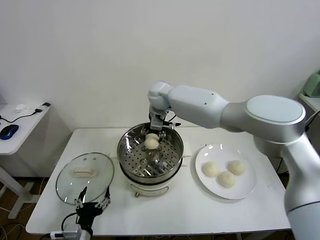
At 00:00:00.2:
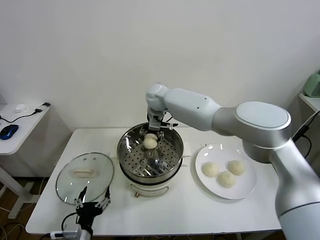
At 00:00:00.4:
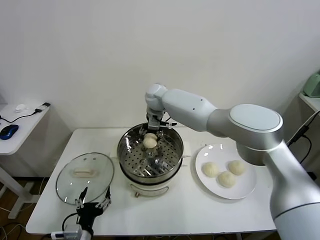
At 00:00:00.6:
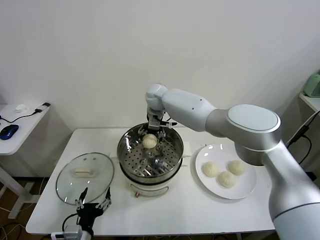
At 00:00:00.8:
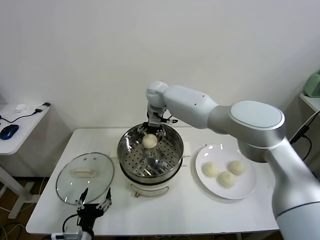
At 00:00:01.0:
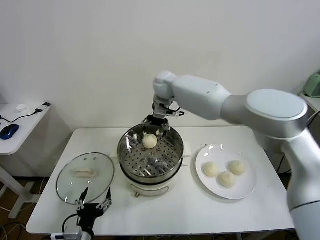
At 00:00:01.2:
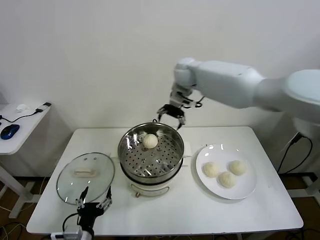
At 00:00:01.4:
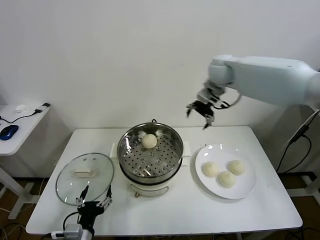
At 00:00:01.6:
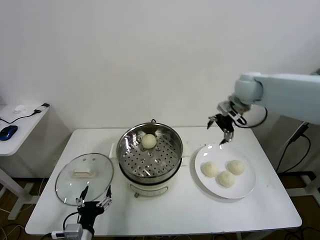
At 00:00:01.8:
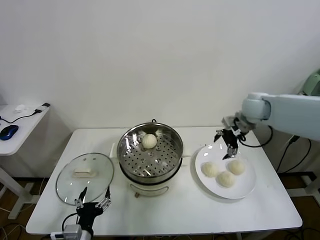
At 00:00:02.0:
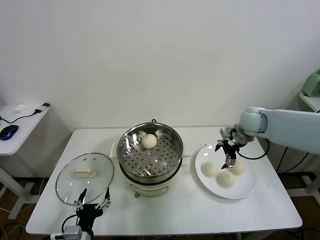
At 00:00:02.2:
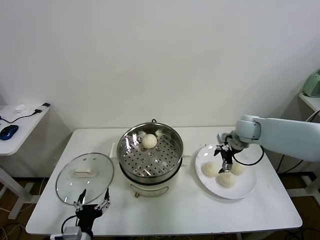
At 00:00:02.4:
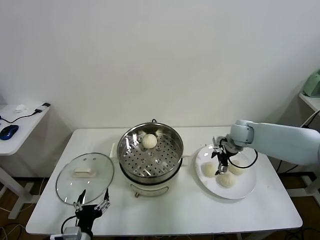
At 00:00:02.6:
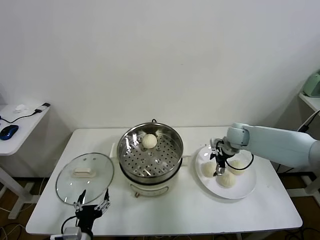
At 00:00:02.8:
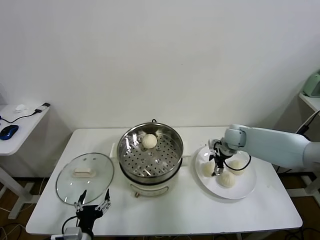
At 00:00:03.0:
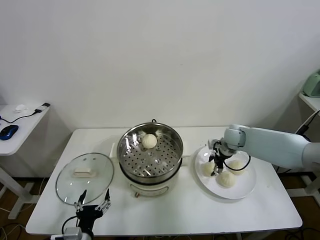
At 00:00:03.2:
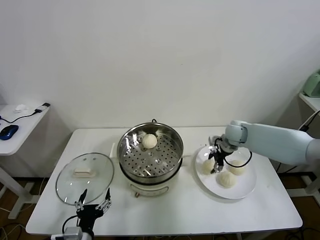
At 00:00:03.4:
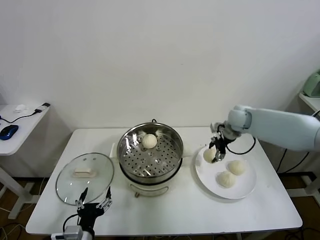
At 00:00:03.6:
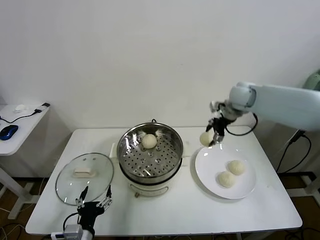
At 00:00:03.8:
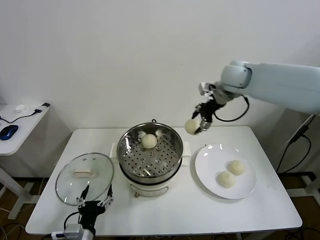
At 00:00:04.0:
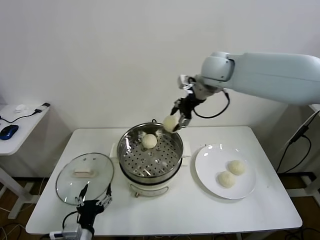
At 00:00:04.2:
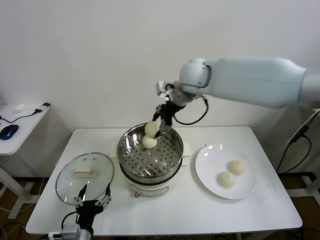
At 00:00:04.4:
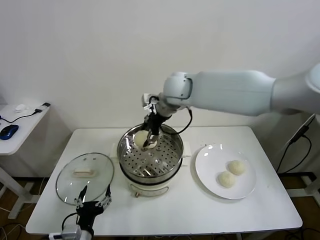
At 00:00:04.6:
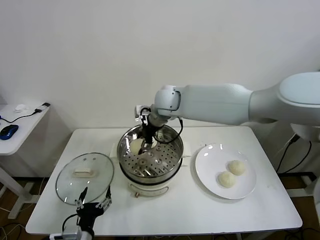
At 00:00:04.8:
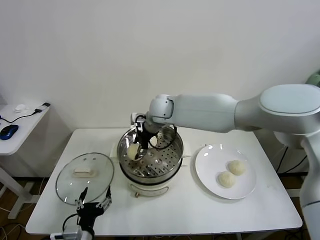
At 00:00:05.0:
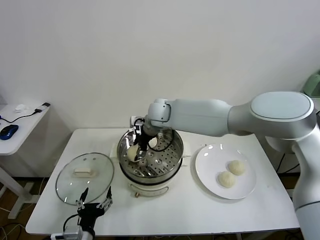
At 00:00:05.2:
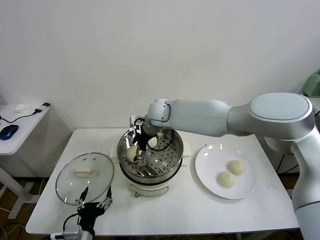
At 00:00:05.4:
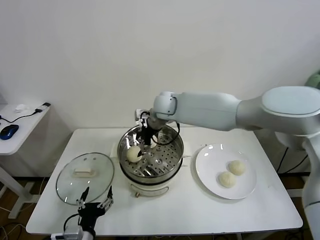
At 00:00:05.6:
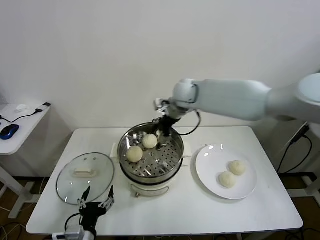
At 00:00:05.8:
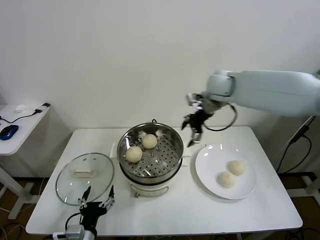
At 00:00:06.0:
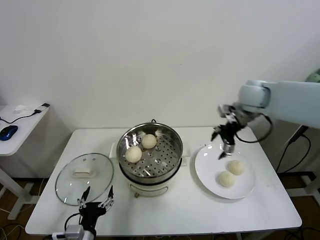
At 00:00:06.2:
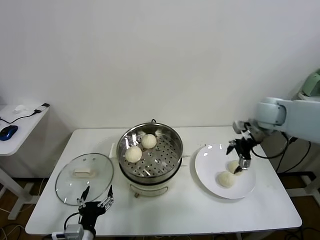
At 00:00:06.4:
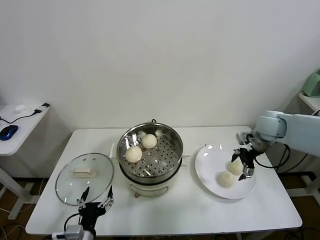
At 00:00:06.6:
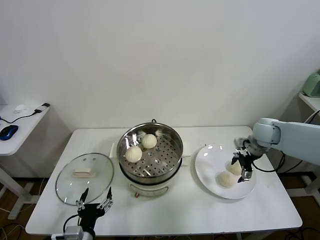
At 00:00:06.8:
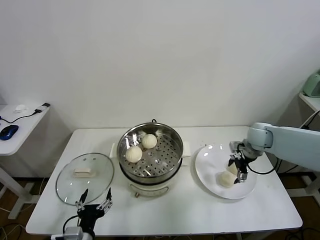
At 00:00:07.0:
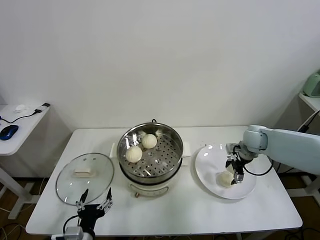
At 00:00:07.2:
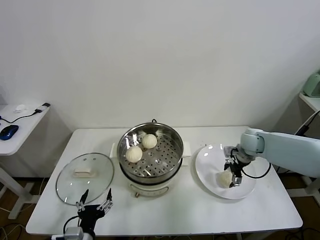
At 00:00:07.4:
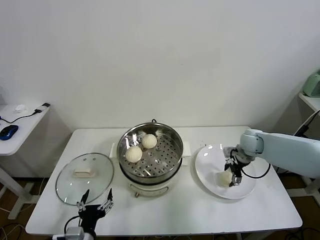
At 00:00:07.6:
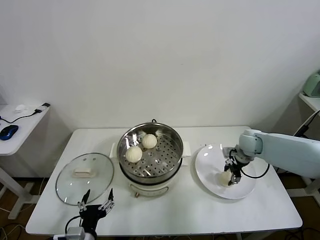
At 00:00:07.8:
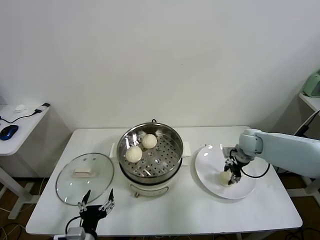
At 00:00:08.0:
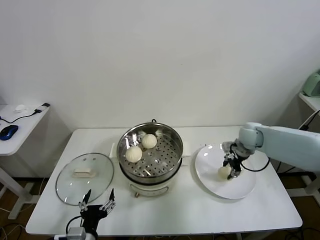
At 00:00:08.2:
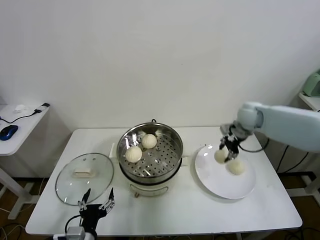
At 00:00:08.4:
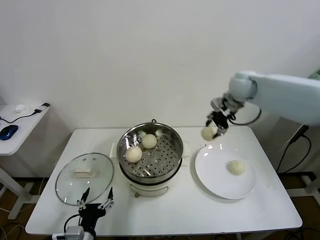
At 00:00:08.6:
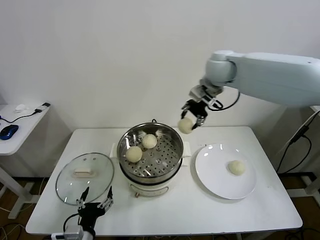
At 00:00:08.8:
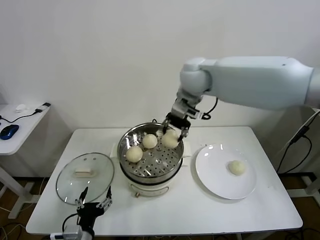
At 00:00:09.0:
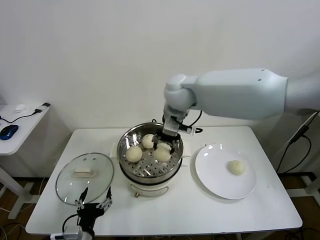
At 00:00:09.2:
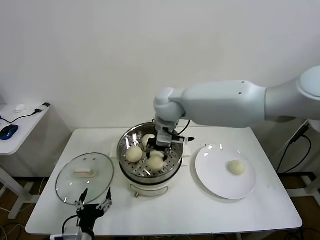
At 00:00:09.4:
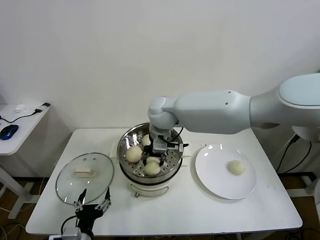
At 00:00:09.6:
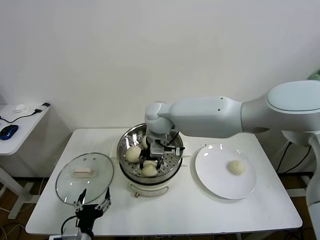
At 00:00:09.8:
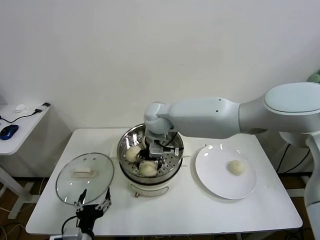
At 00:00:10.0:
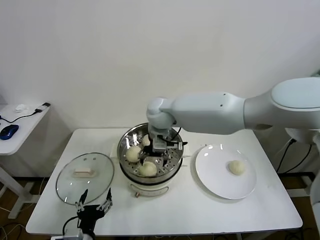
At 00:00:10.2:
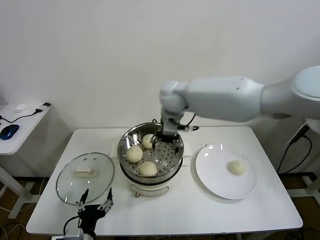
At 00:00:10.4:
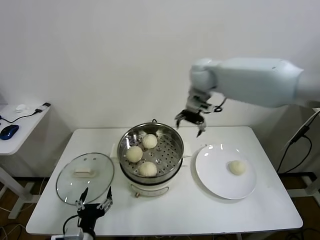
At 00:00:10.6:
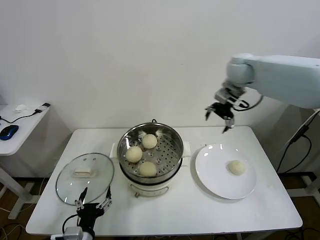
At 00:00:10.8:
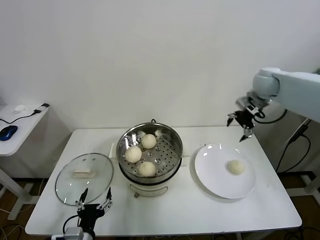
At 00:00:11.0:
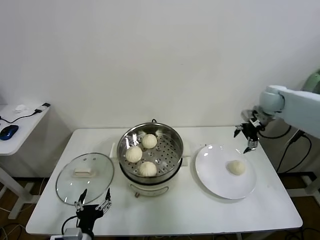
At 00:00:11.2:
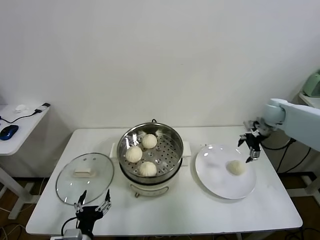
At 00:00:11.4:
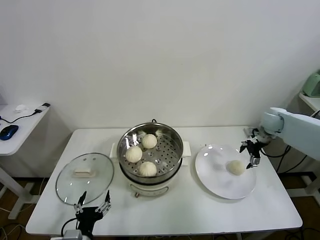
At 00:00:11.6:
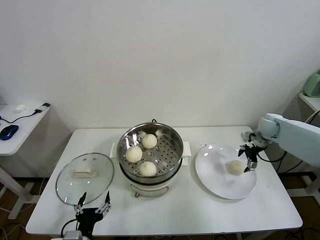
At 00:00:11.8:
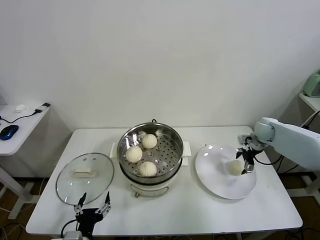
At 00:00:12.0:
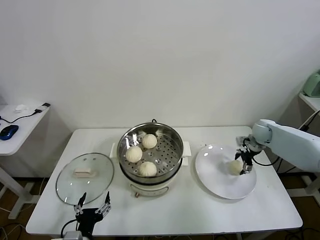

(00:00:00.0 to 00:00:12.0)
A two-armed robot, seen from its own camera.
Task of the whole recording: take steamed baozi put them in steamer.
Step, 00:00:01.0 - 00:00:03.0: Grasp the baozi in the plate with right gripper.
Step, 00:00:03.2 - 00:00:05.2: Place the baozi on the steamer with right gripper.
Step, 00:00:05.4 - 00:00:07.6: Grasp the baozi in the plate with right gripper.
Step, 00:00:07.8 - 00:00:09.8: Place the baozi on the steamer with right gripper.
00:00:00.0 - 00:00:01.6: The right gripper heads to the right, covering roughly 30 cm, and opens.
00:00:01.6 - 00:00:03.0: The right gripper travels downward by roughly 20 cm, and closes its fingers.
00:00:03.0 - 00:00:04.4: The right gripper moves to the left and upward, approximately 35 cm.
00:00:04.4 - 00:00:06.0: The right gripper heads to the right, covering about 25 cm, and opens up.
00:00:06.0 - 00:00:07.6: The right gripper travels downward by approximately 20 cm, and closes.
00:00:07.6 - 00:00:09.0: The right gripper travels to the left and upward by about 35 cm.
00:00:09.0 - 00:00:10.4: The right gripper moves to the right and forward, roughly 10 cm, and opens its fingers.
00:00:10.4 - 00:00:12.0: The right gripper moves to the right and downward, roughly 35 cm.

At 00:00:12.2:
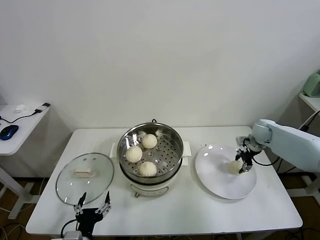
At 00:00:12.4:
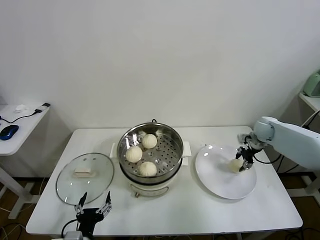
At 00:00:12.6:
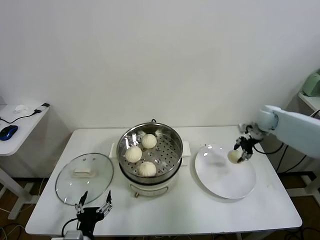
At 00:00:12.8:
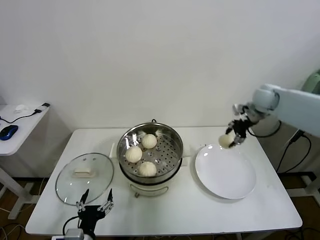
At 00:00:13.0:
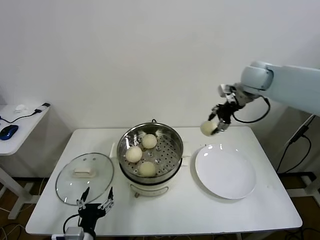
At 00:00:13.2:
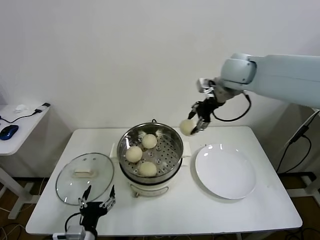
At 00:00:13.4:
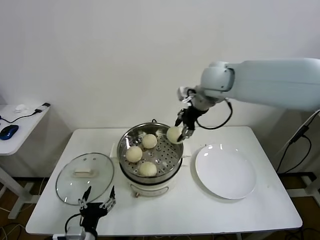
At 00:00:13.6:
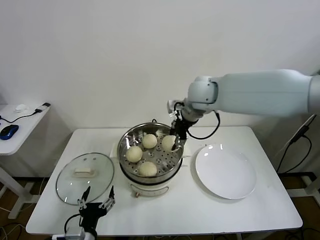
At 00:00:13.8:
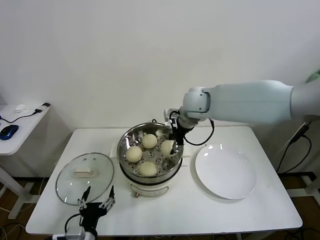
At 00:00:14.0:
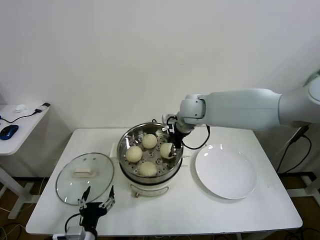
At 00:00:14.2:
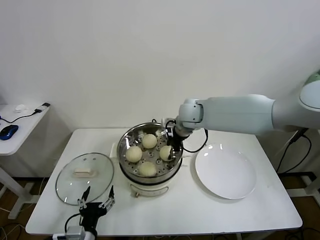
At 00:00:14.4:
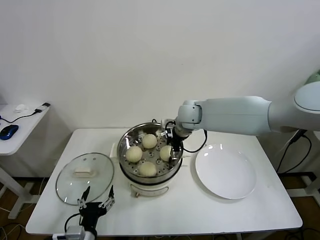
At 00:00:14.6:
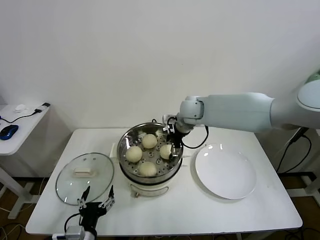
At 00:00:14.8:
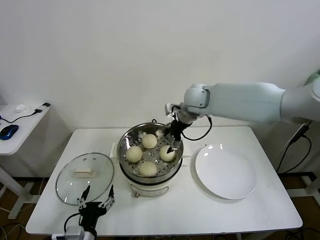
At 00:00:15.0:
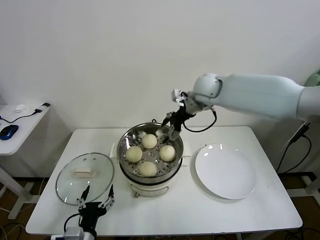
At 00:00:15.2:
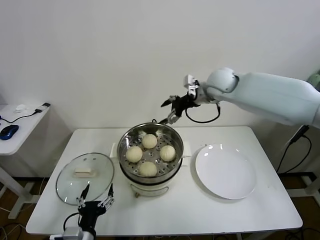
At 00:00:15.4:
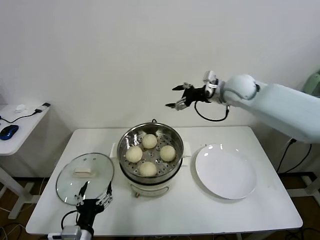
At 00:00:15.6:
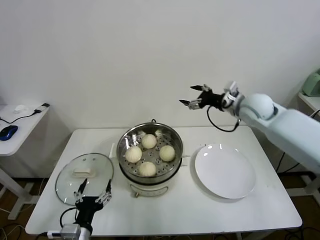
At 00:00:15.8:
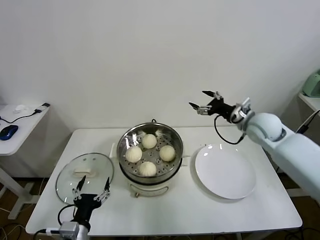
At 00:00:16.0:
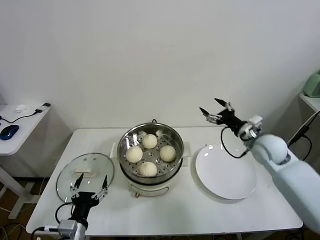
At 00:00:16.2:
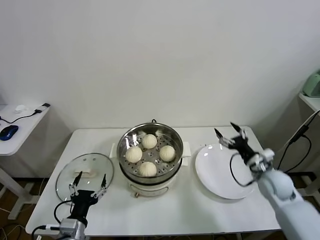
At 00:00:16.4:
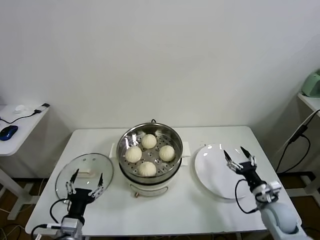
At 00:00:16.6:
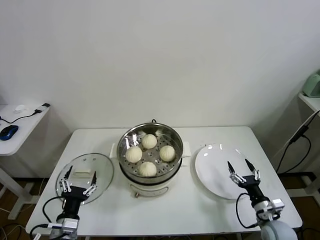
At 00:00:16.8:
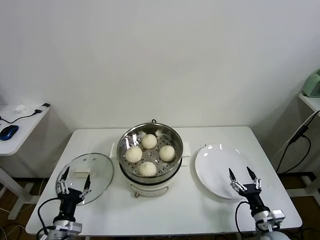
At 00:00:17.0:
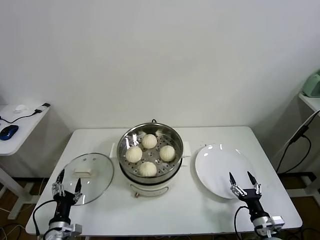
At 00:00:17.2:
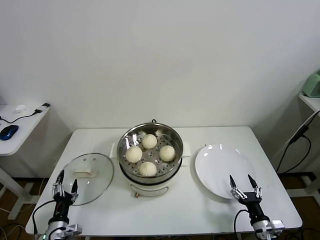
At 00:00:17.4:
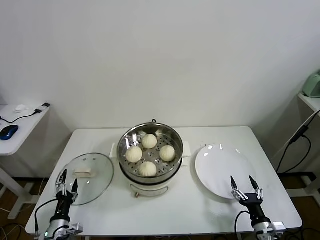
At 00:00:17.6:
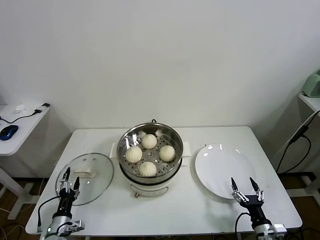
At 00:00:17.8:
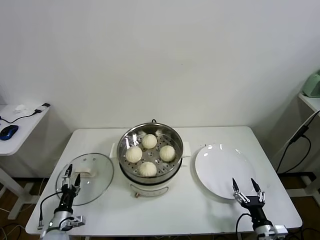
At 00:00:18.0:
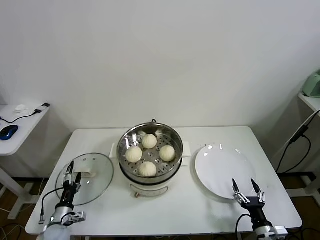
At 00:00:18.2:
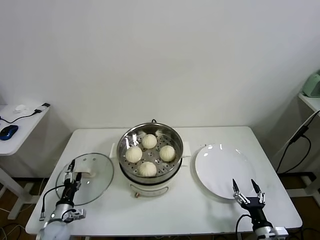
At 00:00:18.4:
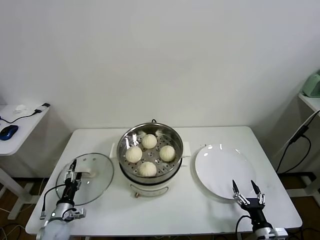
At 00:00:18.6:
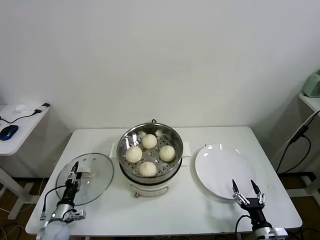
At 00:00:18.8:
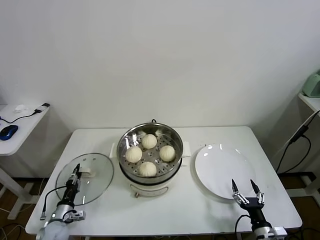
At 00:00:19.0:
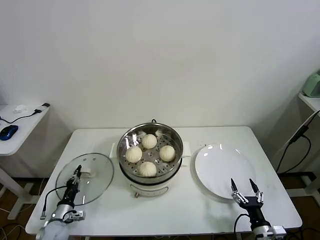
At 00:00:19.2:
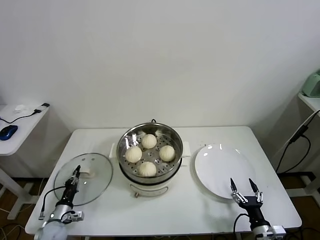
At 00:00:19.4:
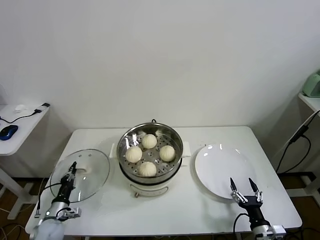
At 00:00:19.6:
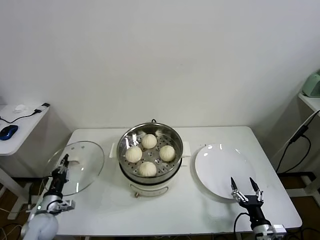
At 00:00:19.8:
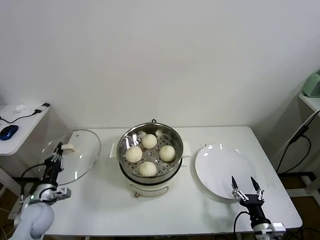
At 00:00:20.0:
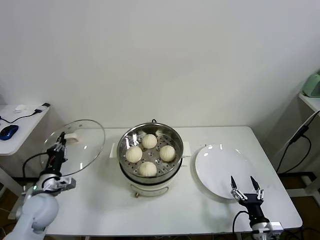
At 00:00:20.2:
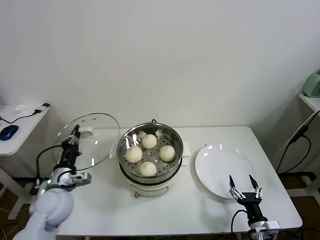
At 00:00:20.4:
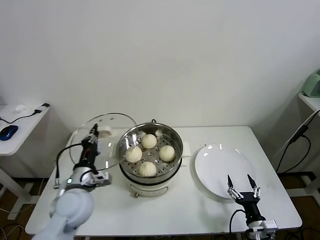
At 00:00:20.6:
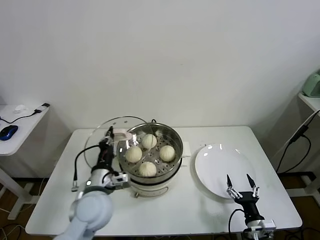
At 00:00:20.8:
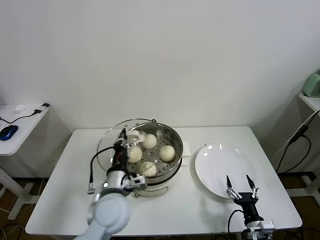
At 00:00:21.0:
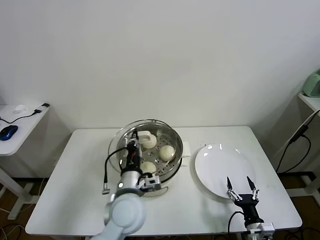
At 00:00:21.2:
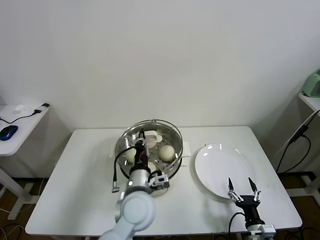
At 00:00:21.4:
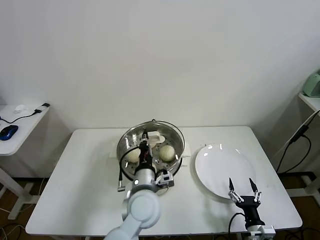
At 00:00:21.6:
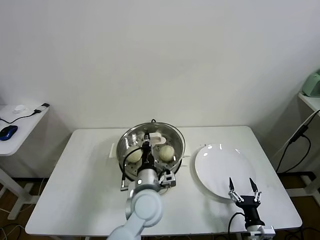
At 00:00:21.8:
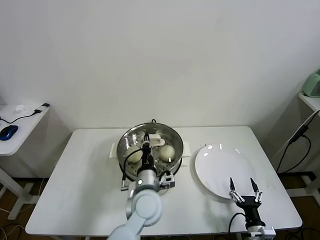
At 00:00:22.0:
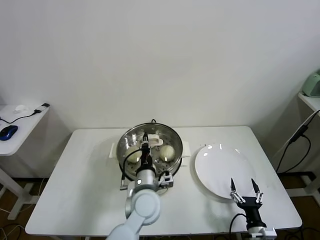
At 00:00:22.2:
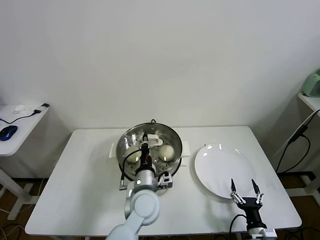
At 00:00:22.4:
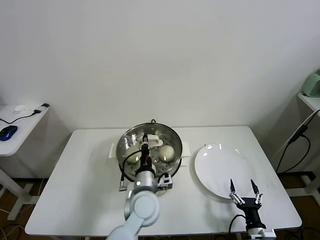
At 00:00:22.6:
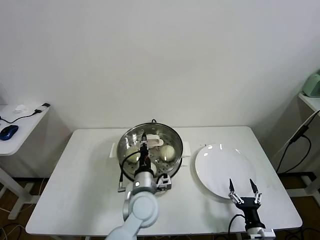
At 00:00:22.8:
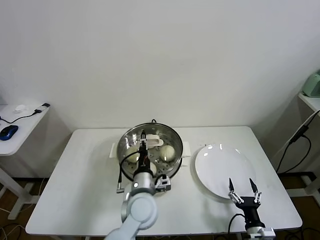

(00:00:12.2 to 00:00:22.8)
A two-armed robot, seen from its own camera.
Task of the whole recording: take steamed baozi put them in steamer.
Step, 00:00:12.2 - 00:00:14.6: Place the baozi on the steamer with right gripper.
Step, 00:00:14.8 - 00:00:19.0: Grasp the pot lid with left gripper.
00:00:12.2 - 00:00:13.8: The right gripper shifts about 35 cm to the left and upward.
00:00:13.8 - 00:00:15.2: The right gripper shifts about 5 cm to the right, and opens its fingers.
00:00:15.2 - 00:00:16.8: The left gripper heads to the left, covering some 10 cm; the right gripper moves downward, backward and to the right, about 60 cm.
00:00:16.8 - 00:00:18.2: The left gripper moves downward, to the left and forward, roughly 15 cm. The right gripper moves about 5 cm.
00:00:18.2 - 00:00:19.8: The left gripper travels upward by roughly 10 cm, and closes up.
00:00:19.8 - 00:00:21.2: The left gripper goes about 35 cm to the right and upward.
00:00:21.2 - 00:00:22.8: The left gripper moves some 5 cm.
